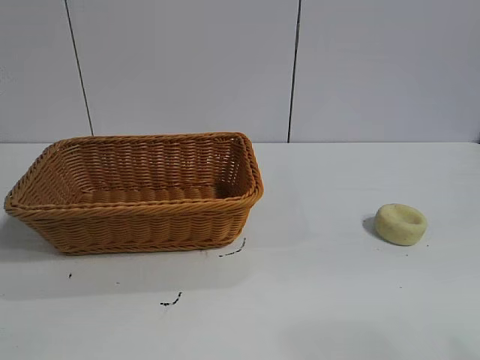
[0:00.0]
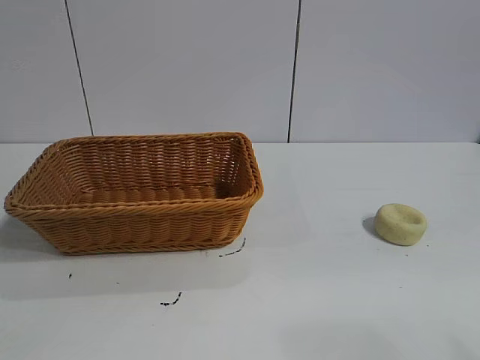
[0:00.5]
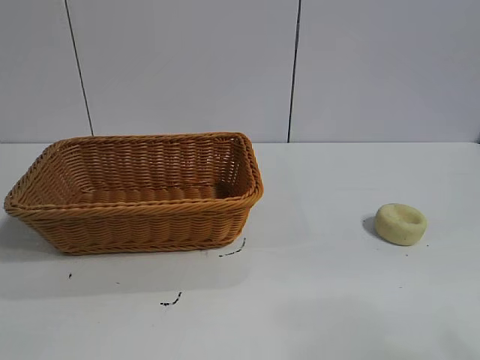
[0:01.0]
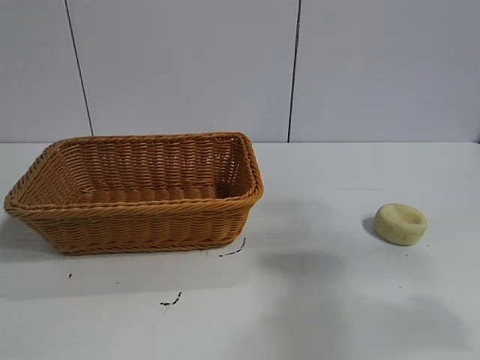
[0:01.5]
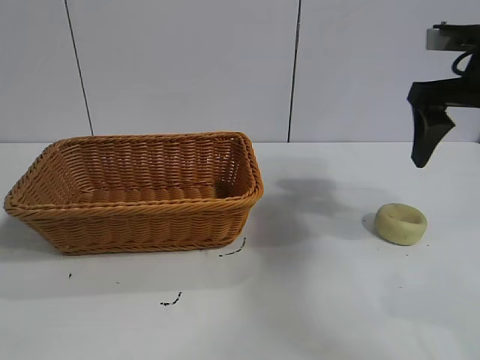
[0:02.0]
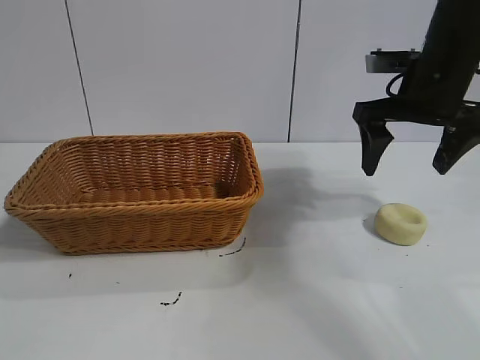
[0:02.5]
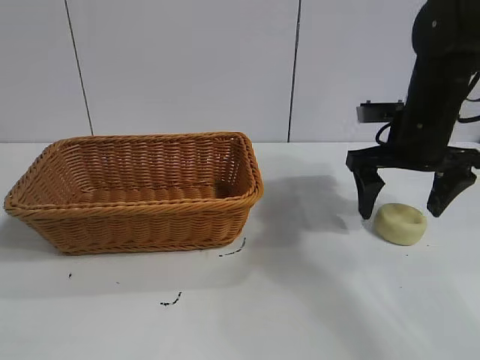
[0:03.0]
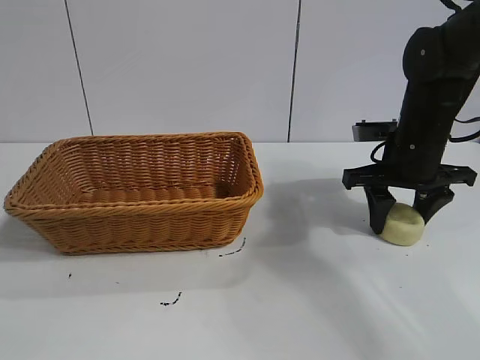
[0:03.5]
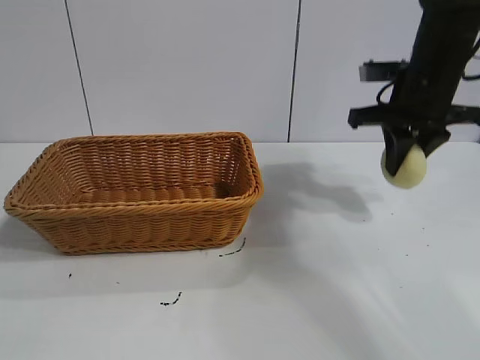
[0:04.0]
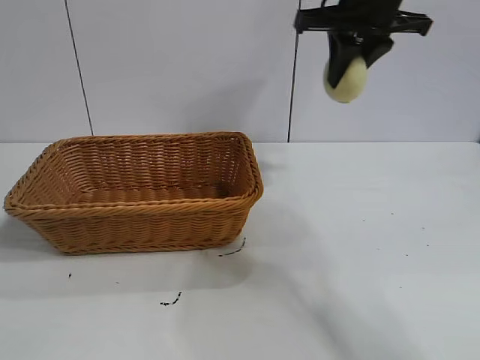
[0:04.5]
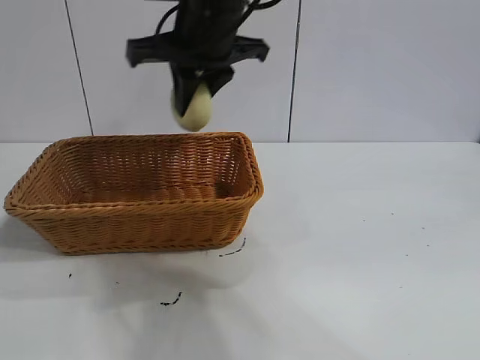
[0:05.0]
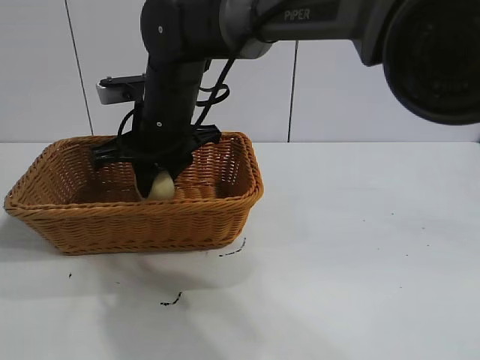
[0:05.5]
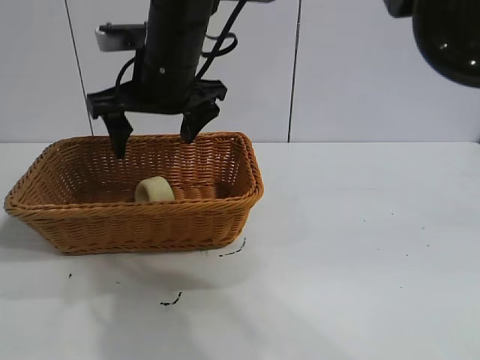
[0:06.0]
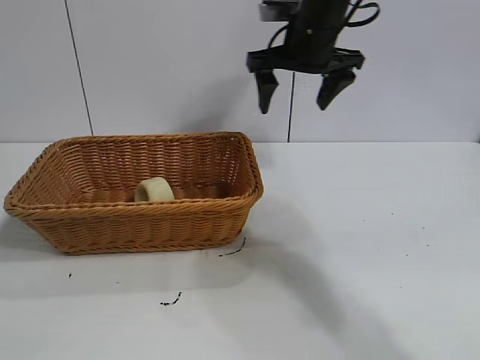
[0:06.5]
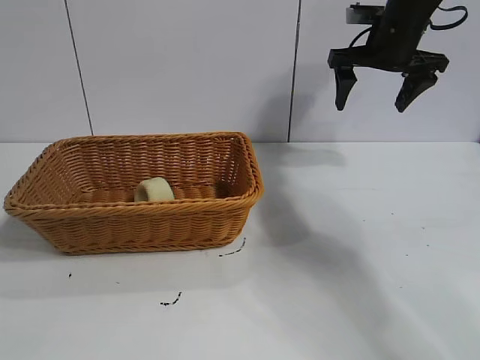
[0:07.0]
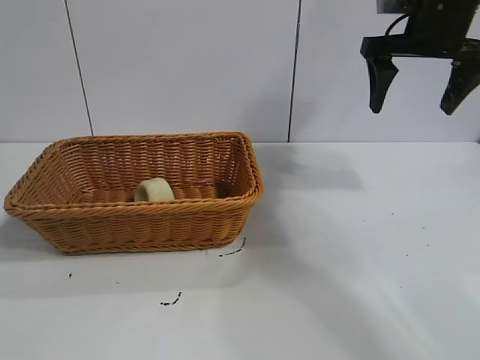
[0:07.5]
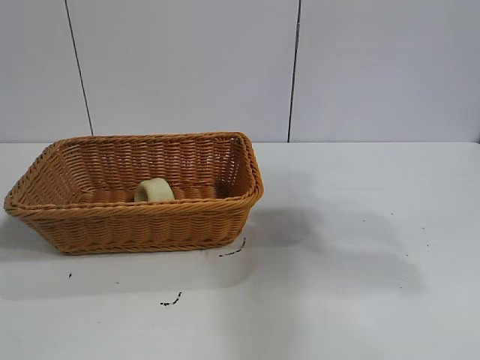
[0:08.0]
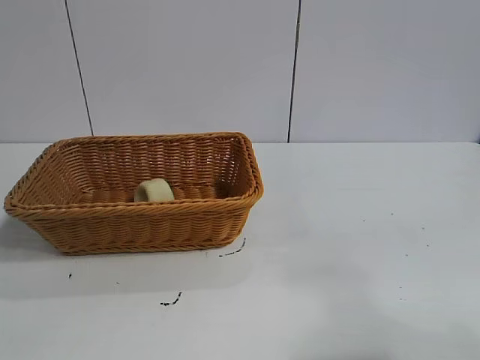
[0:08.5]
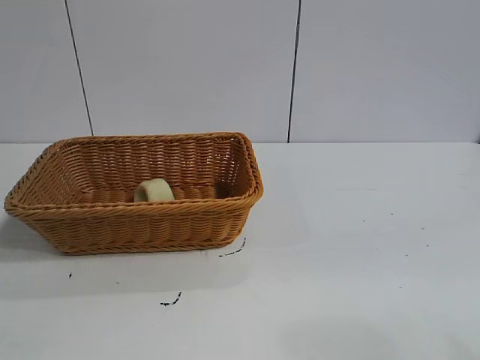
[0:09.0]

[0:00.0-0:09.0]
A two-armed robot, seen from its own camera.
Task of the whole recording: pick up the egg yolk pastry and put it into the basket.
Step, 0:01.0 to 0:03.5: Grasp egg yolk pastry with right gripper.
Step, 0:04.0 to 0:05.5: Place the egg yolk pastry in the basket with right gripper.

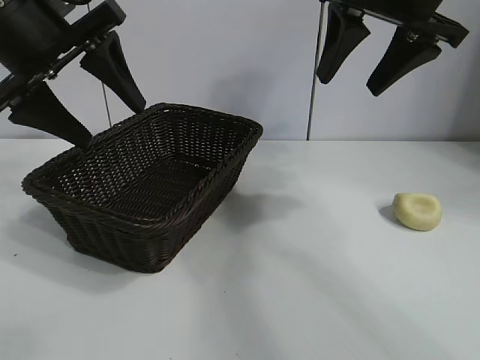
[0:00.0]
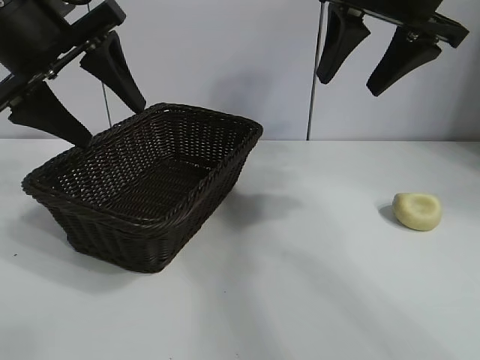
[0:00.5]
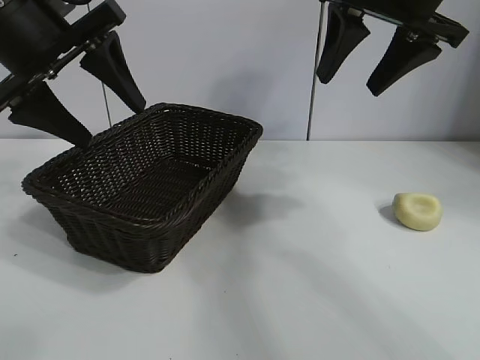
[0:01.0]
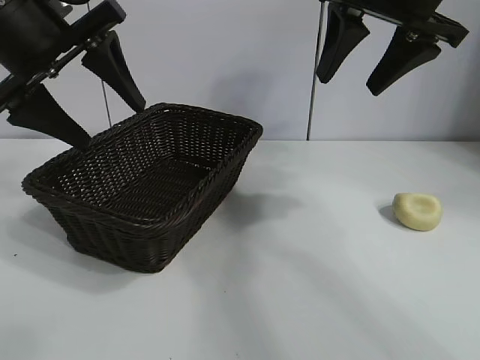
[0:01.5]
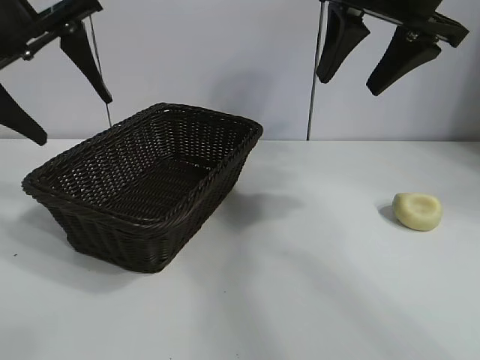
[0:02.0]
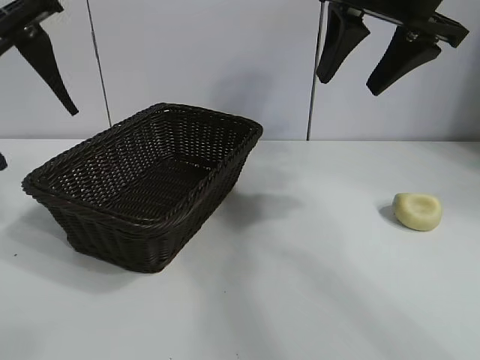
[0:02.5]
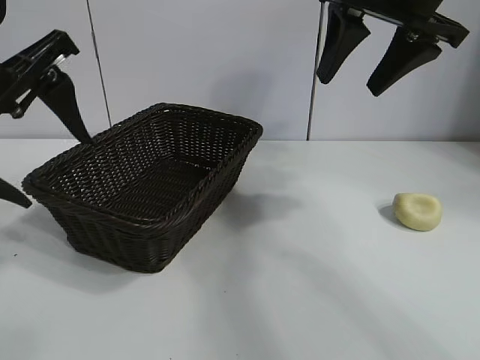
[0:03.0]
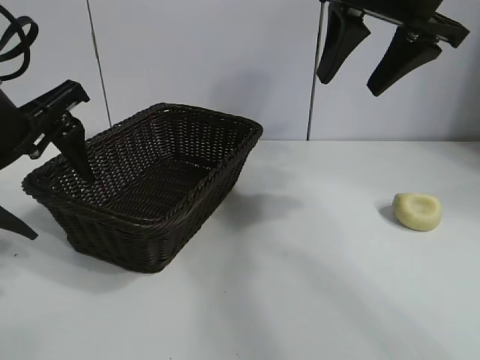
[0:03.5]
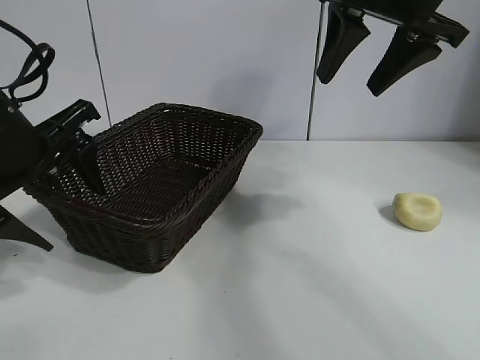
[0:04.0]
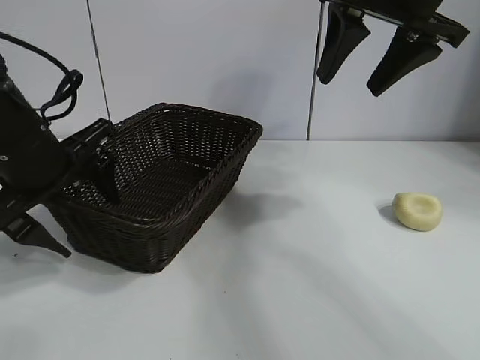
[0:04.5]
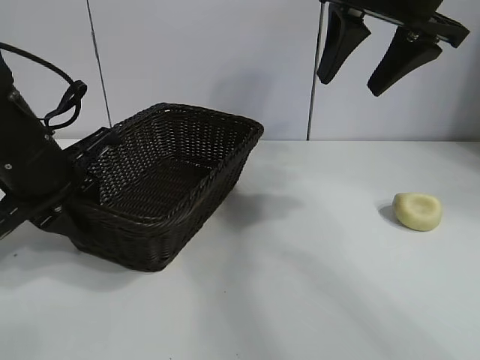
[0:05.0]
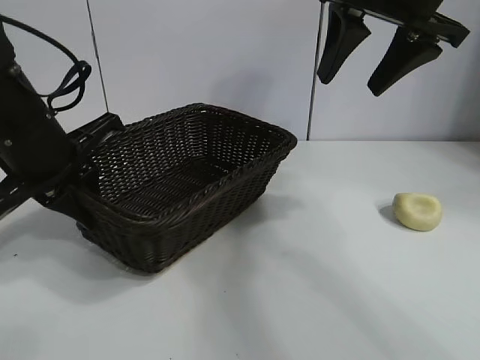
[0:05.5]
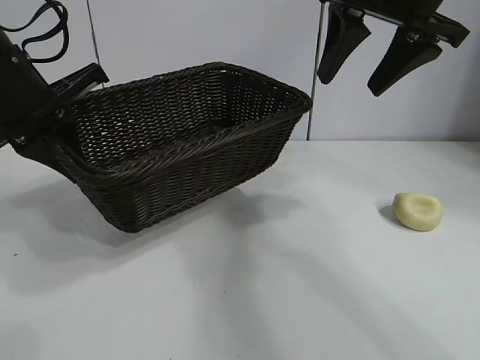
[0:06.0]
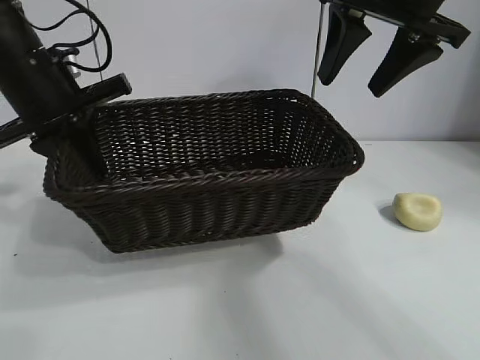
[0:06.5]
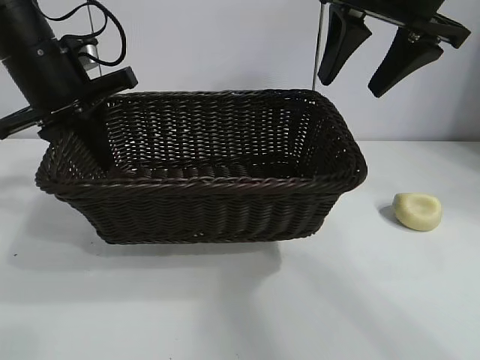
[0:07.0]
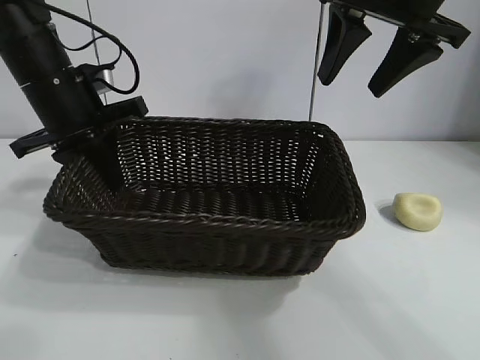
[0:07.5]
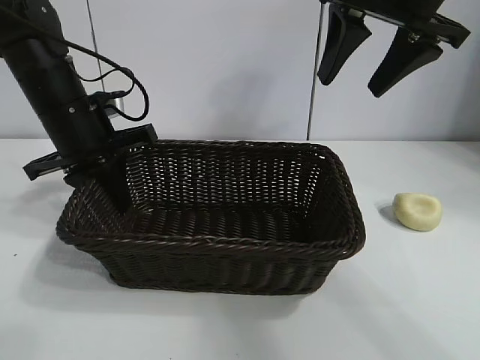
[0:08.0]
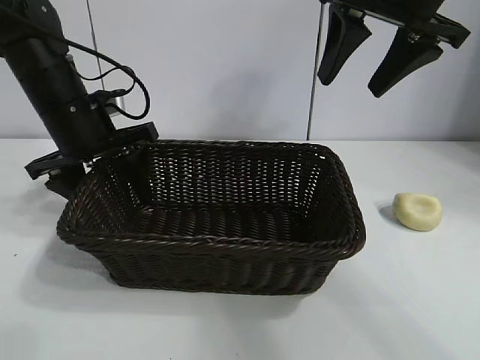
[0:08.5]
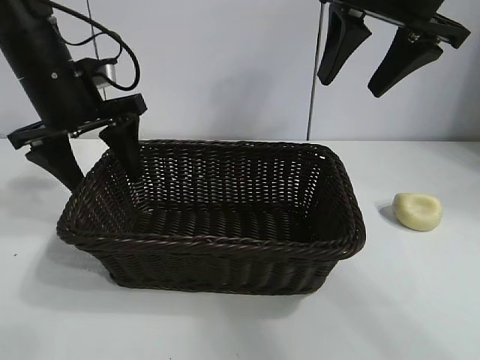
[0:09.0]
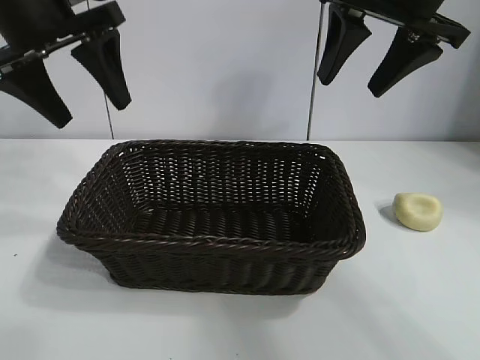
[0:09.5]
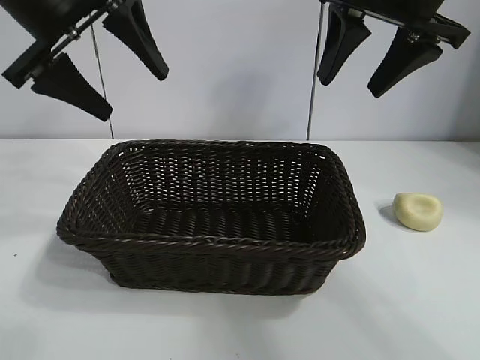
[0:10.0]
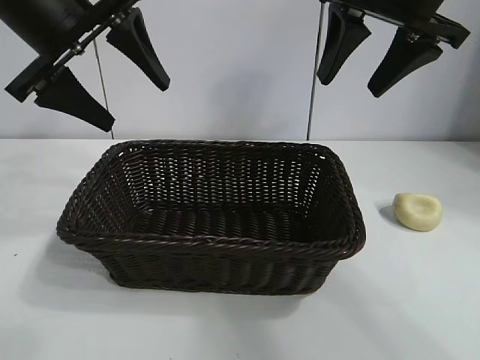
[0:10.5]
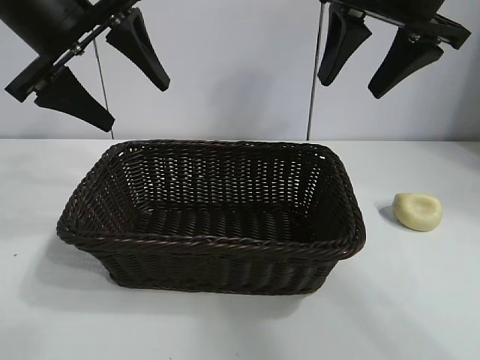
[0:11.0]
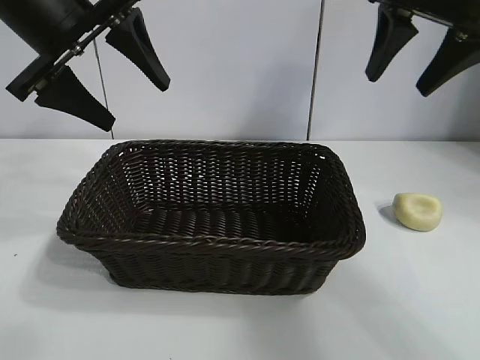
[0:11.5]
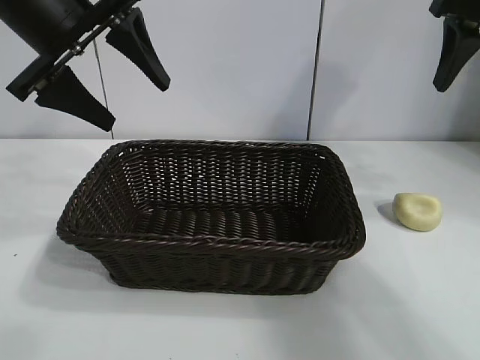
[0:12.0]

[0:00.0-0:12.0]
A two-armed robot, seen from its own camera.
Task of the whole recording: pick up the egg yolk pastry and put it into the basket.
Step, 0:01.5 to 0:05.0: Grasp the basket with left gripper.
Step, 0:05.5 to 0:08.5: Place the basket in the center of view with left gripper.

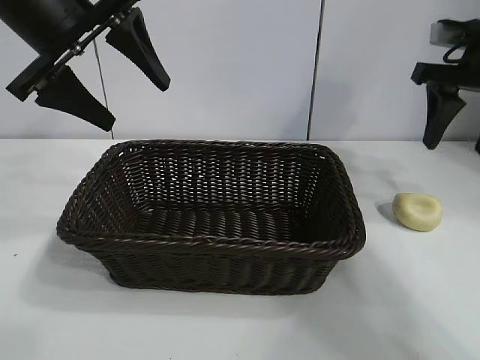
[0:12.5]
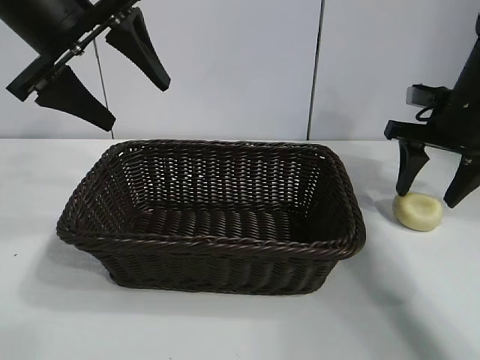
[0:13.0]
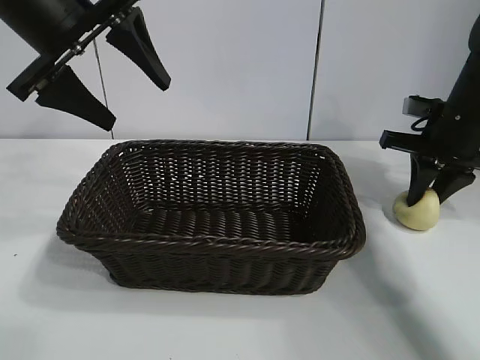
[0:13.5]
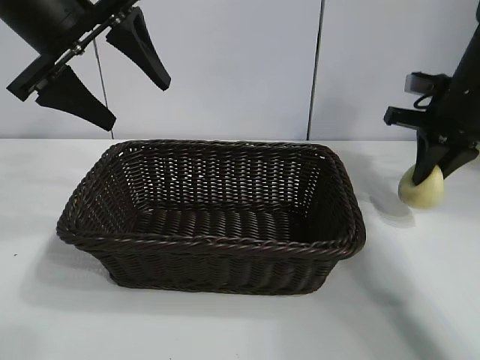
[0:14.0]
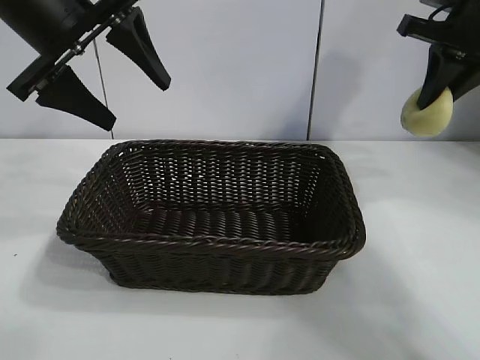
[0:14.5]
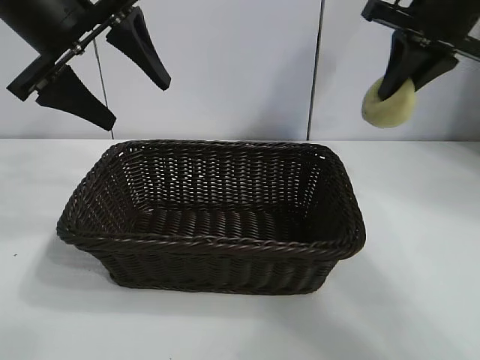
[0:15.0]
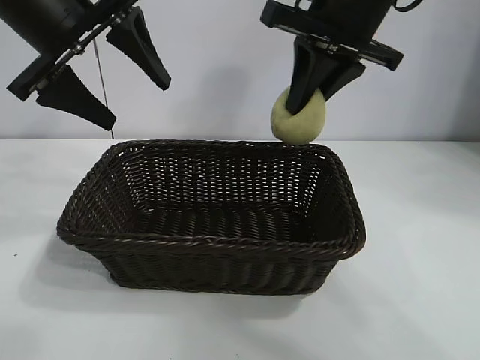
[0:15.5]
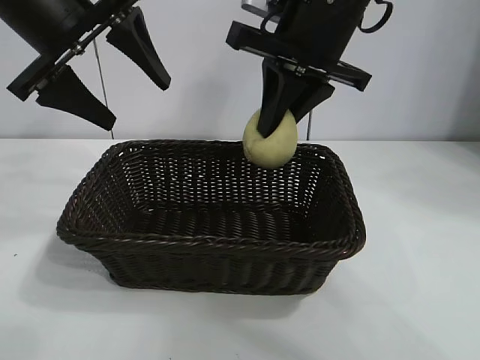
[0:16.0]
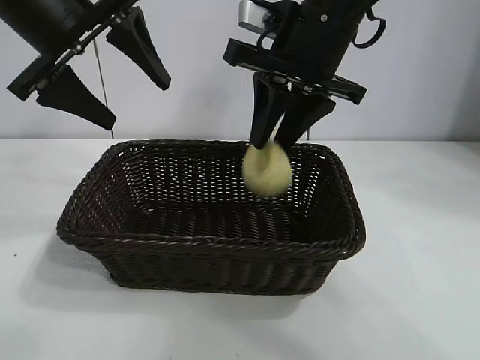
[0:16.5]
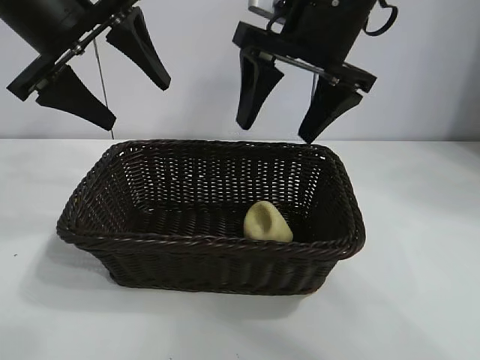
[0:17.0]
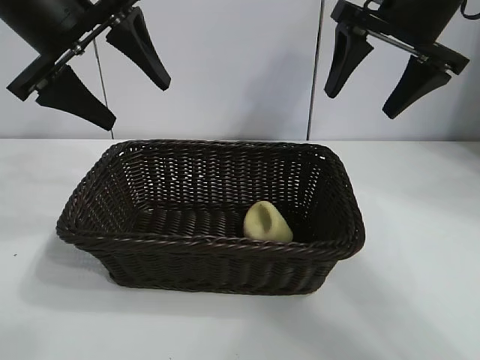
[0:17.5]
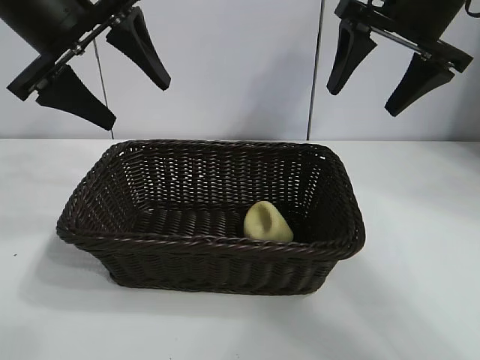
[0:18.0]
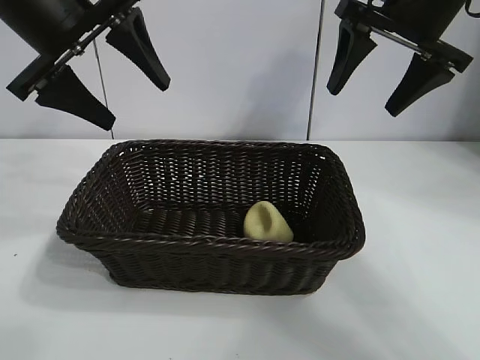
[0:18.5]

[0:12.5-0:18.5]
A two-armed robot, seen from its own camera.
Task of the whole recording: pick up the egg yolk pastry and put it into the basket.
Step, 0:14.0 to 0:16.5: Place the egg yolk pastry in the basket with right gripper.
